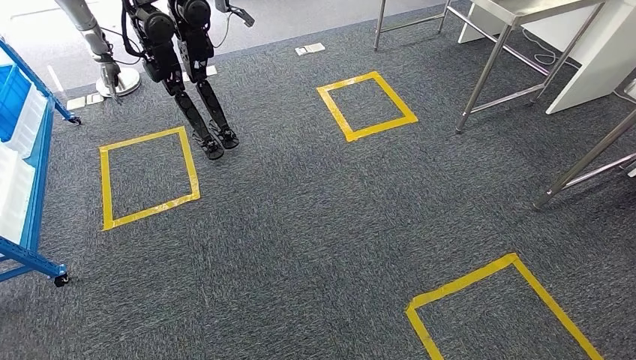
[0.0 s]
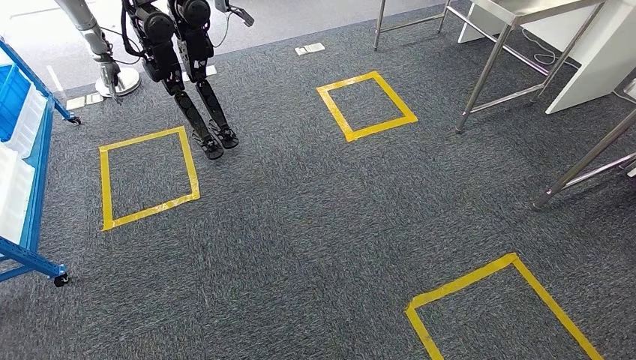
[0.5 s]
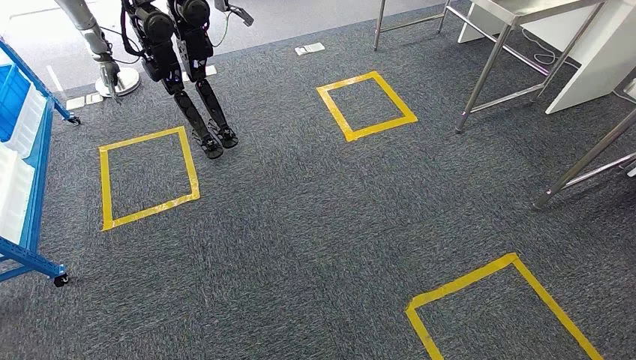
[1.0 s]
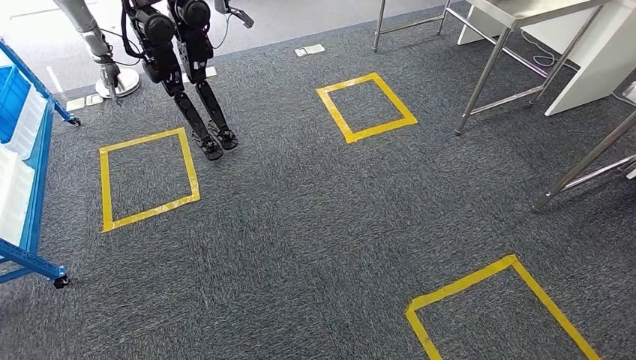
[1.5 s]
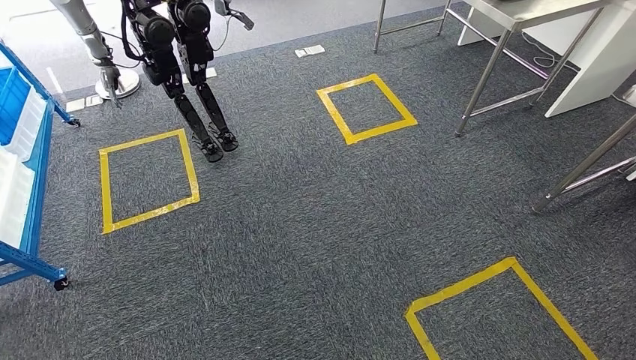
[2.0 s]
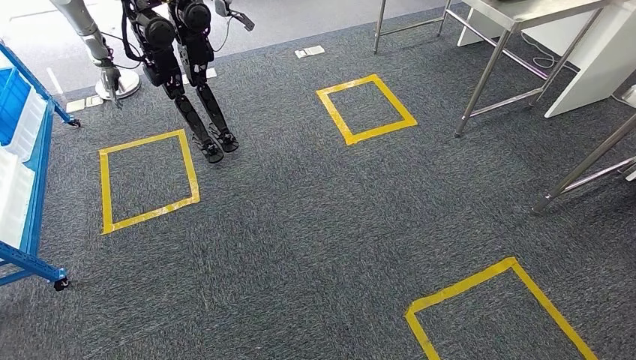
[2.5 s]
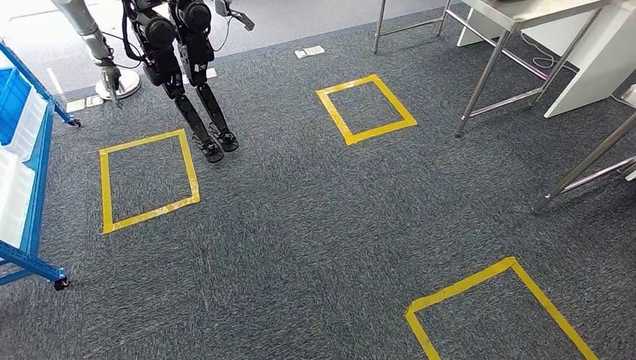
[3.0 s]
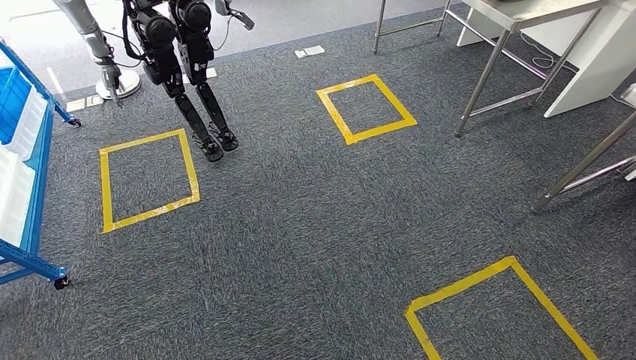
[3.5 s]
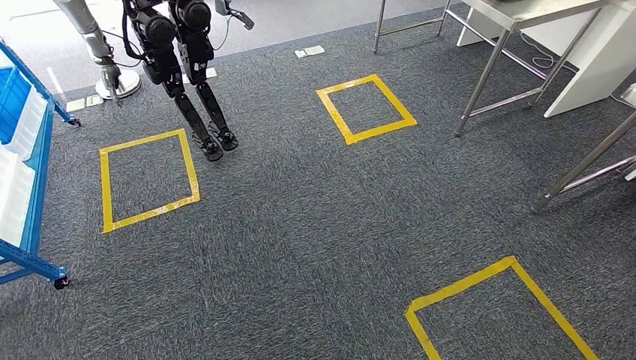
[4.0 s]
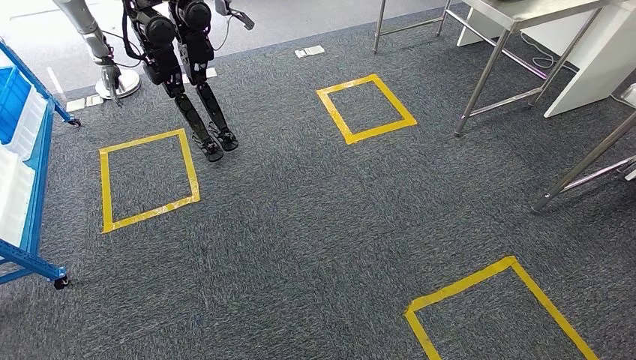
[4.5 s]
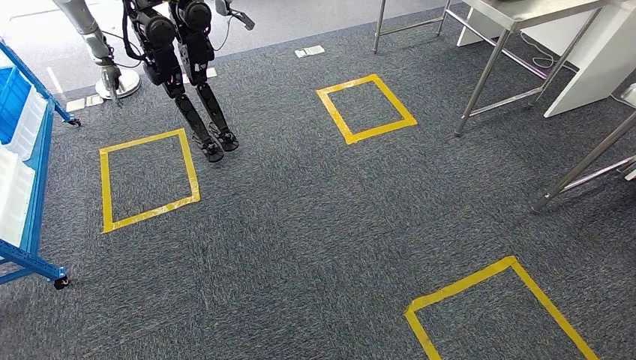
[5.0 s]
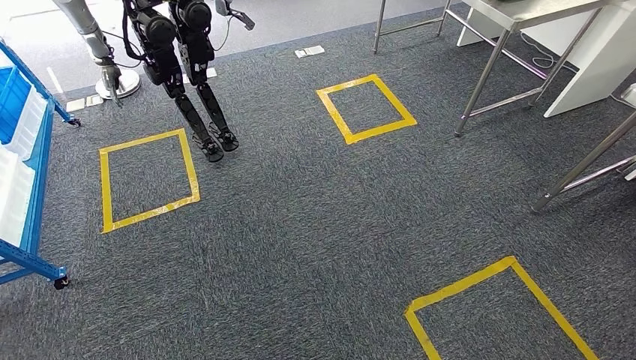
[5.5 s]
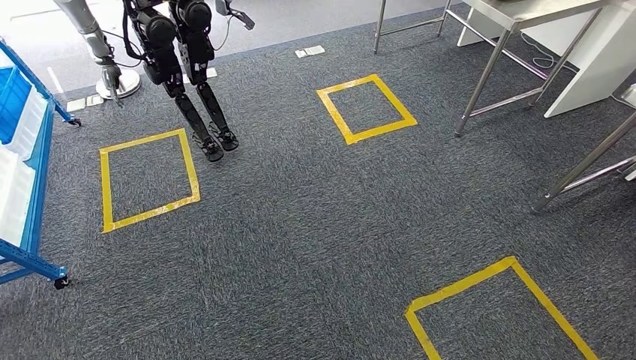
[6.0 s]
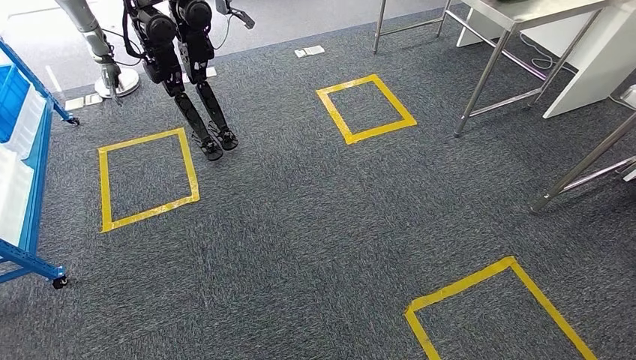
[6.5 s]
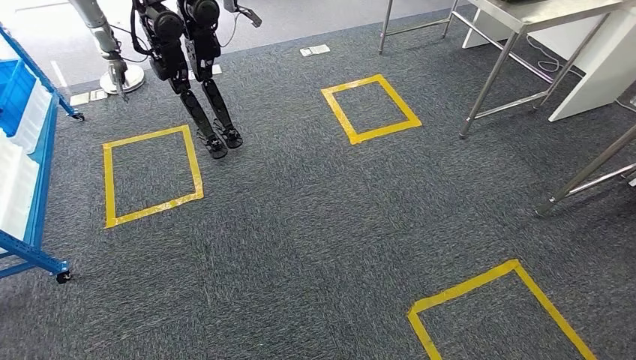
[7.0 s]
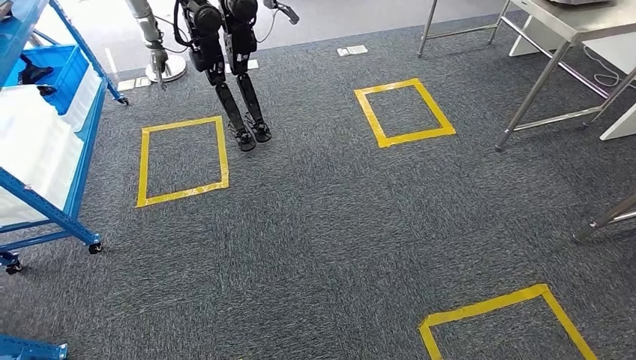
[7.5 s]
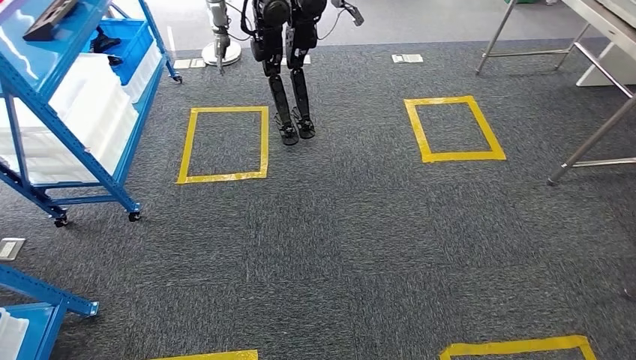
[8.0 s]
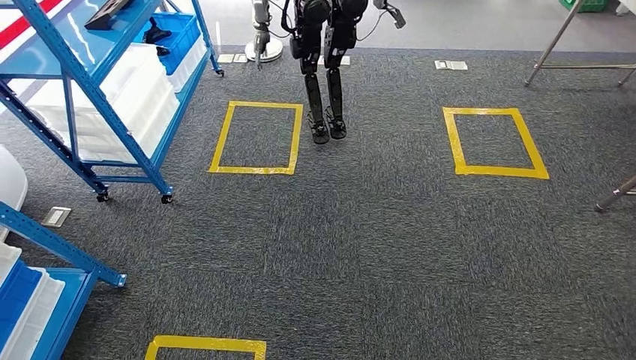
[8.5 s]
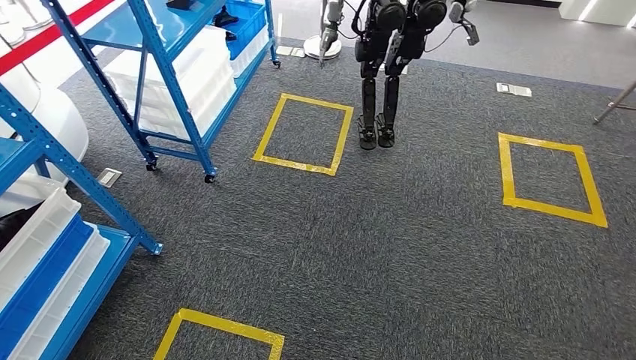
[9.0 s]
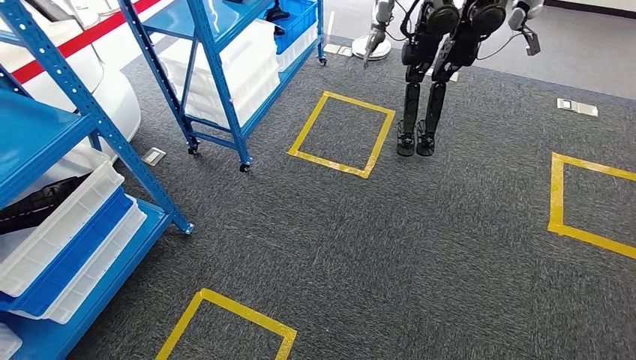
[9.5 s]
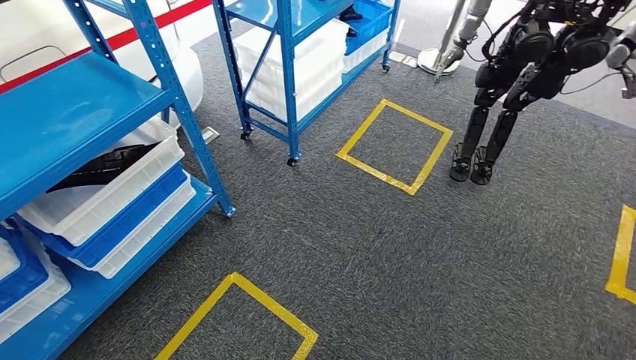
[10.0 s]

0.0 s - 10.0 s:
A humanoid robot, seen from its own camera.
0.0 s - 2.0 s: There are only small adjustments of the hands.
2.0 s - 4.0 s: Both hands stay put.

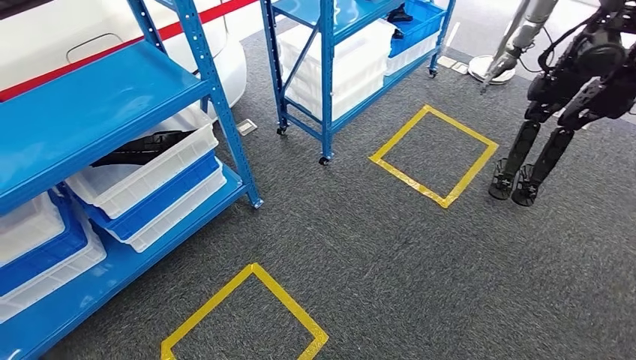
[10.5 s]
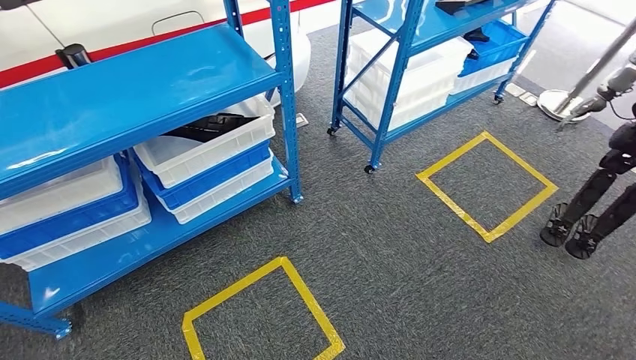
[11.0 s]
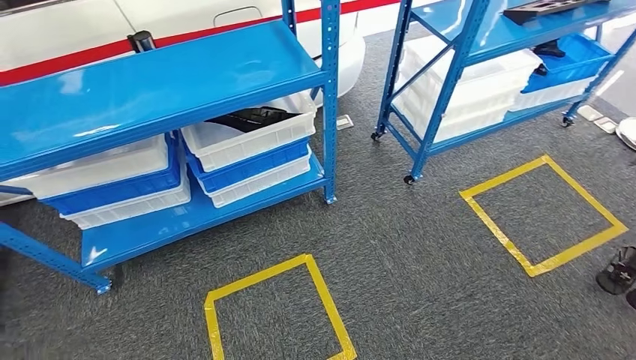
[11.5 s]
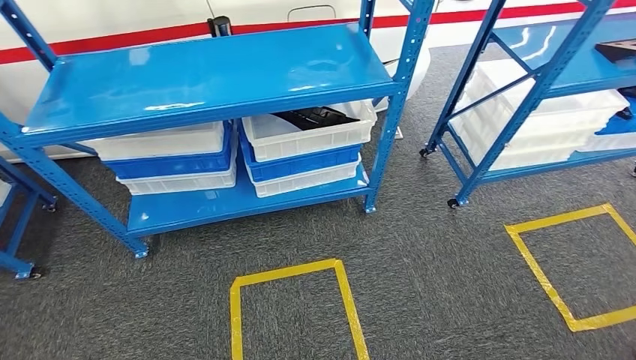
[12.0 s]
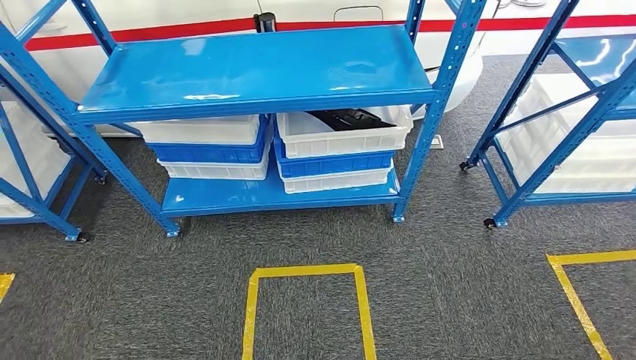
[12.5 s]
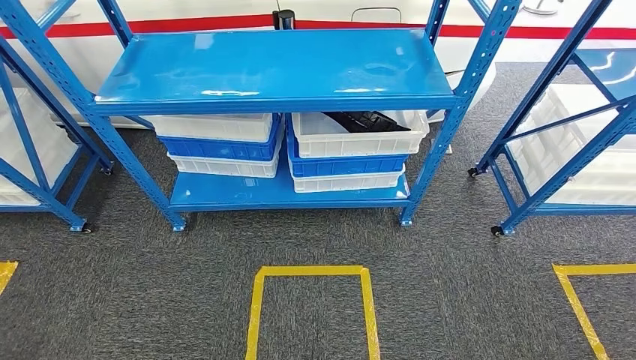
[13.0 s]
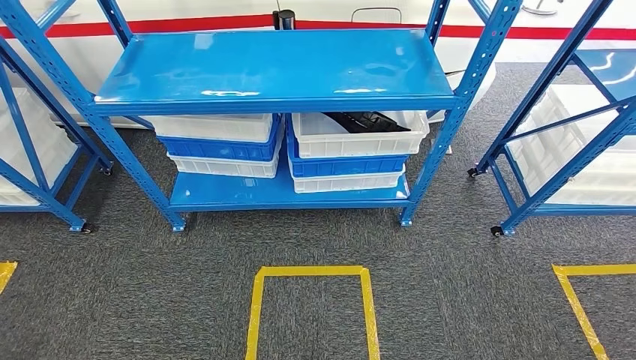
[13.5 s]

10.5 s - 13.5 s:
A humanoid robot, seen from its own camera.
Step, 10.5 s - 13.5 s: Move to the initial position of the shelf.

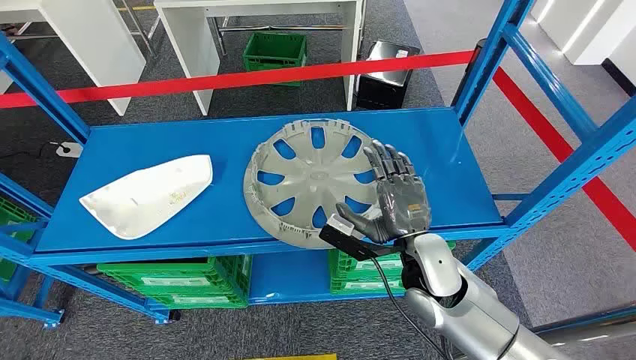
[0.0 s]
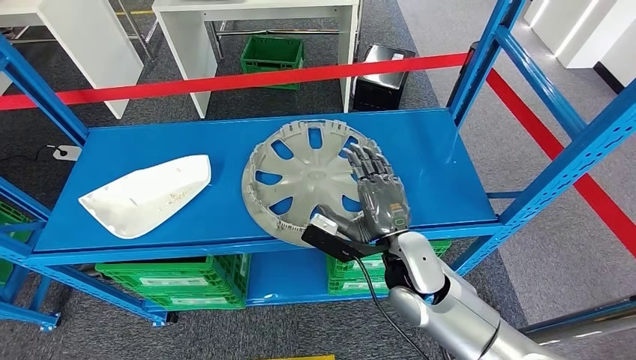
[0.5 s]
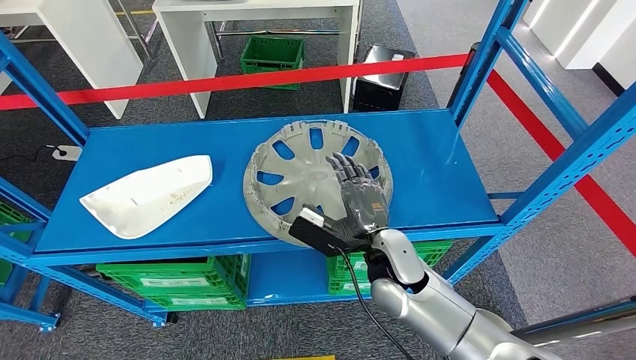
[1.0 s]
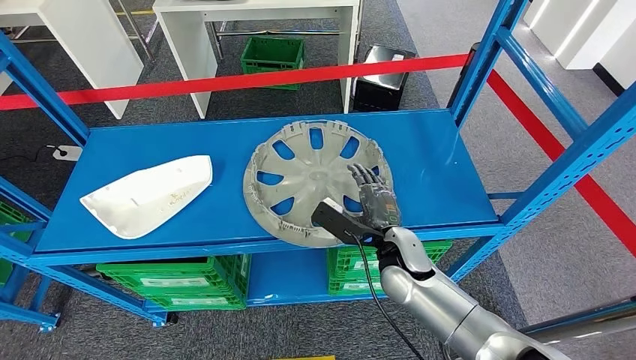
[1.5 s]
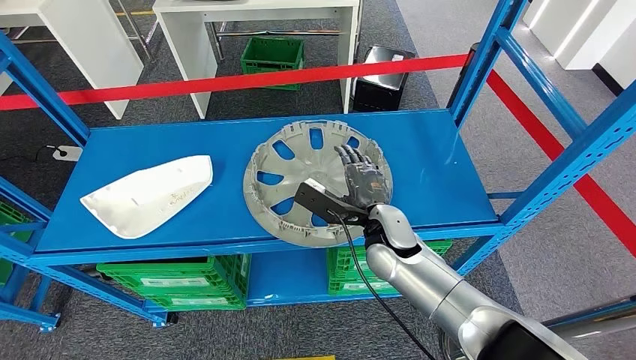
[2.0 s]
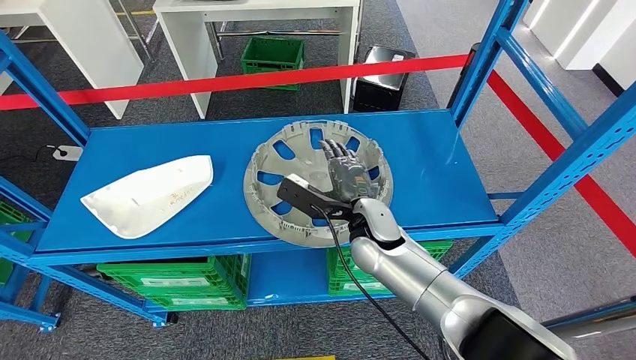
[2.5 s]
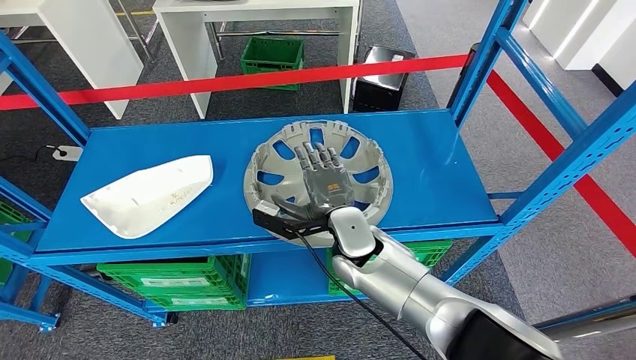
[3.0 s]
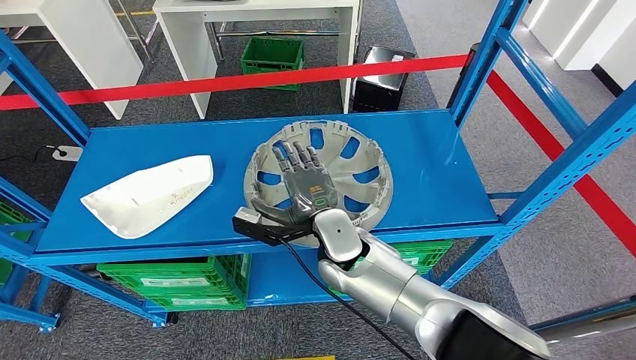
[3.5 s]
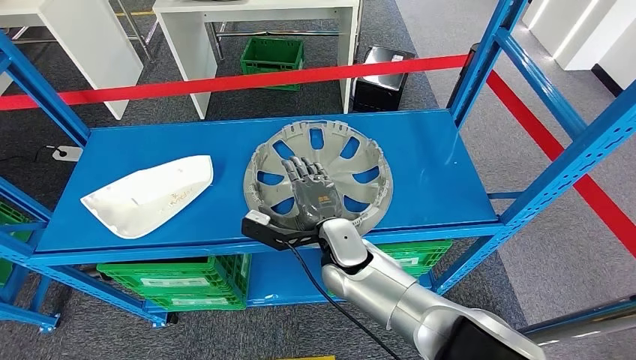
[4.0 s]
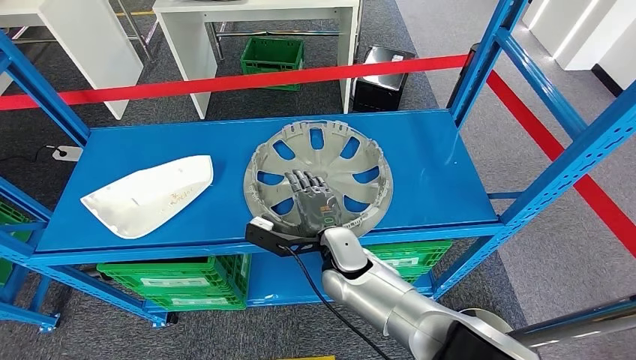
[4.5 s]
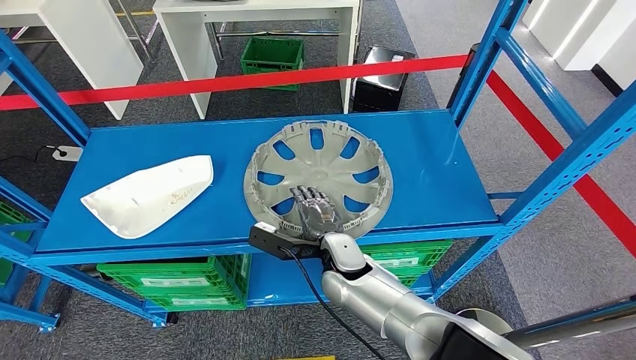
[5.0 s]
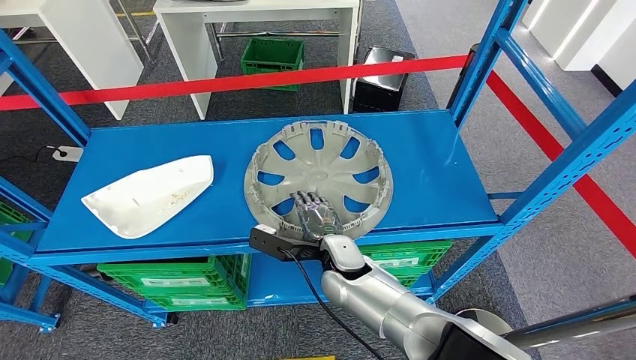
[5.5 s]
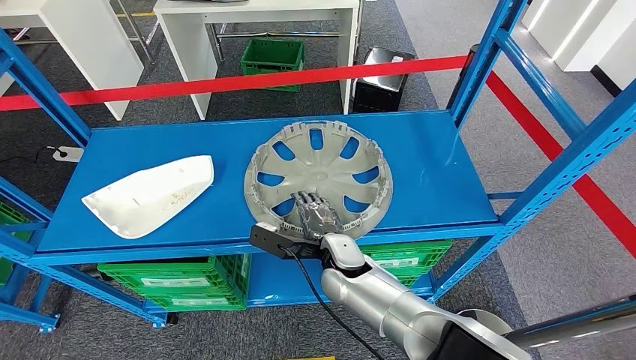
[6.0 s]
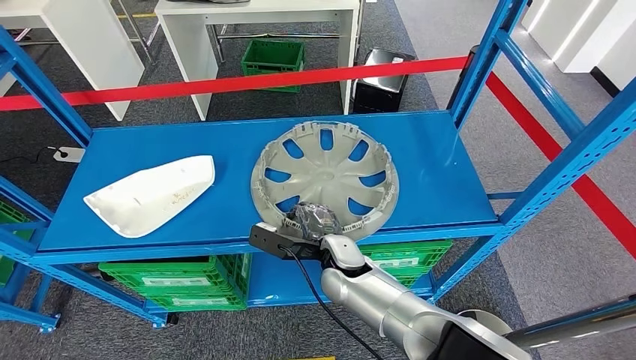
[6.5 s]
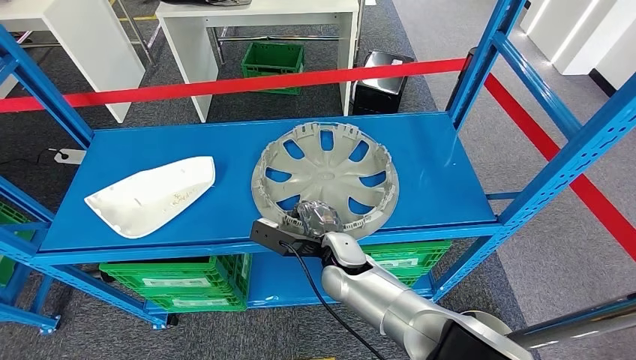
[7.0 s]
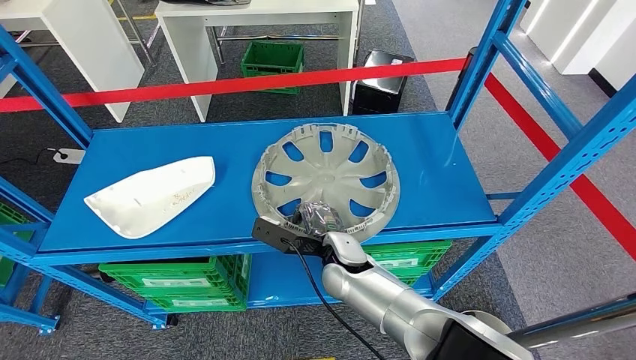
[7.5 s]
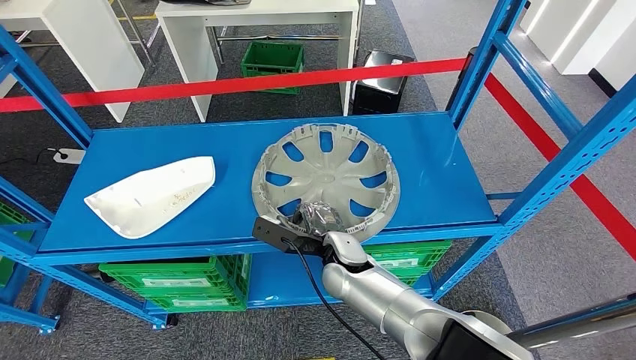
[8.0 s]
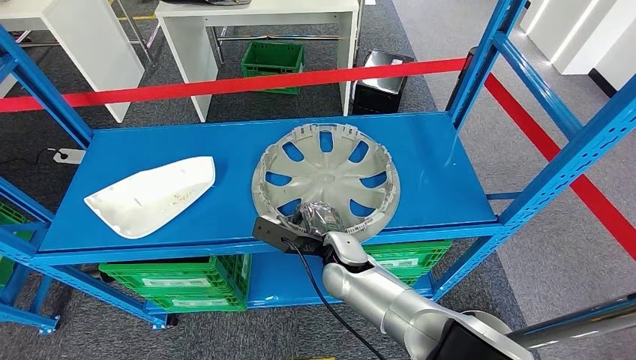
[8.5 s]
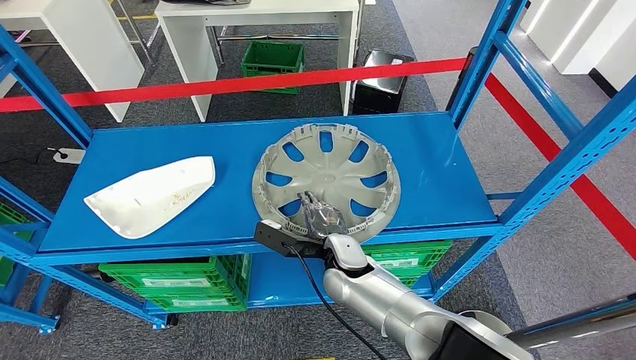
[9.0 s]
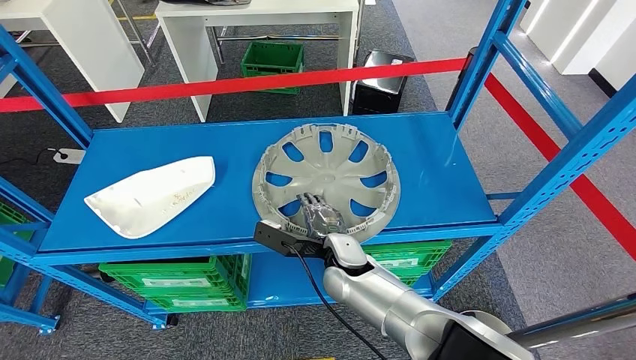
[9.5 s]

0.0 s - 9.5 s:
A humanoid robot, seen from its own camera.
2.0 s - 4.0 s: The right hand travels to the left by about 10 cm.
4.0 s - 5.5 s: The hands move only a little.
5.5 s - 7.5 s: The hands stay close to where they were, moving slightly.
7.5 s - 9.5 s: Both hands stay about where they are.
